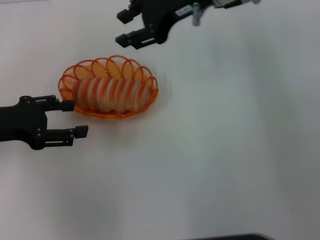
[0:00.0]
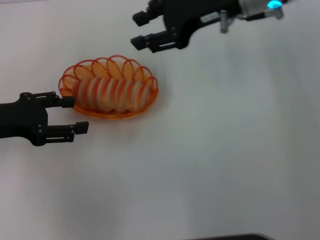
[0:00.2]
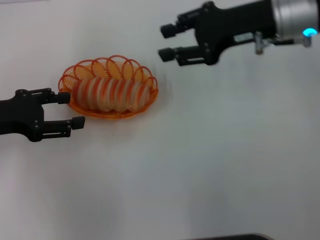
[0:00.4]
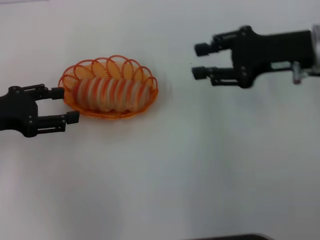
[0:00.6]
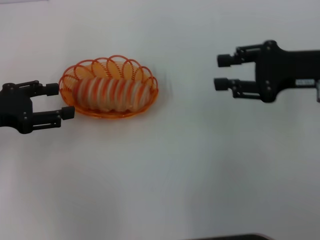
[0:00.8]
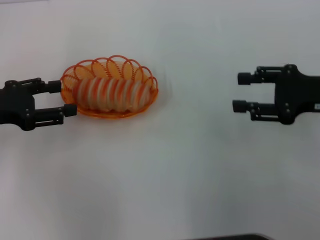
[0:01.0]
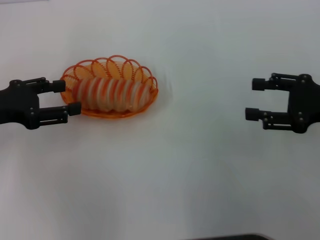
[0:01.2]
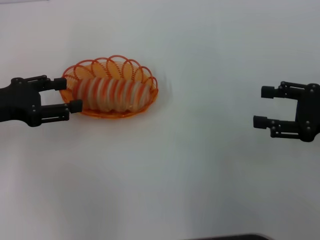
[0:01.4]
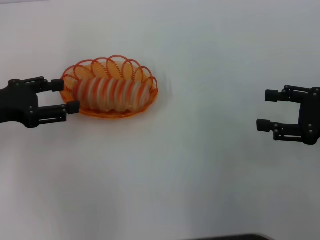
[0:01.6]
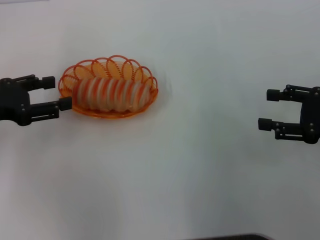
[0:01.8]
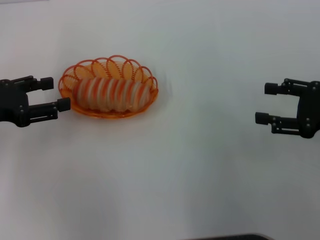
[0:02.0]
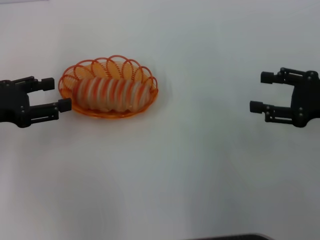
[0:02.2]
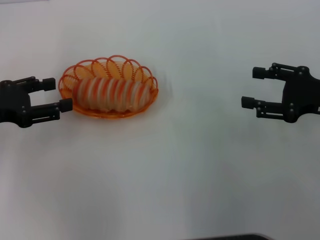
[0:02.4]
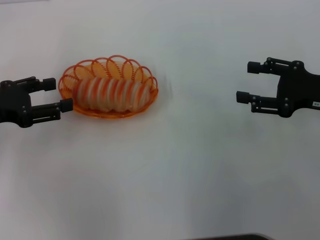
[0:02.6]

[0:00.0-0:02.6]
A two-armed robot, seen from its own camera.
0:00.0 to 0:01.2: The right gripper goes about 30 cm to the right, backward and downward.
0:01.2 to 0:02.6: There are only small adjustments of the grippers.
